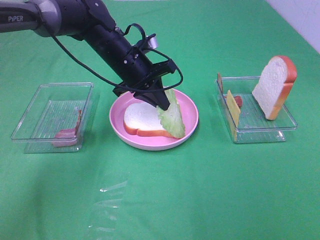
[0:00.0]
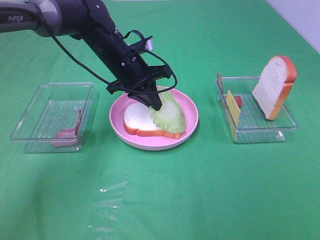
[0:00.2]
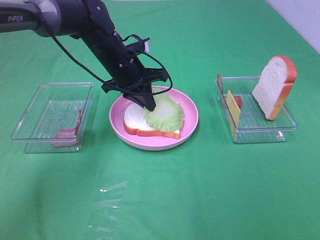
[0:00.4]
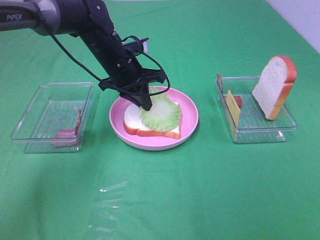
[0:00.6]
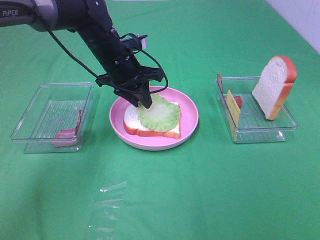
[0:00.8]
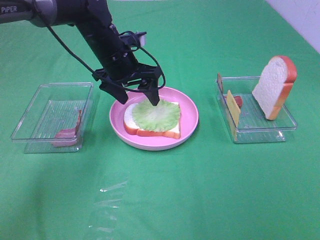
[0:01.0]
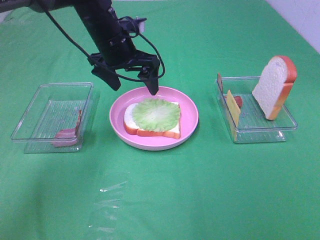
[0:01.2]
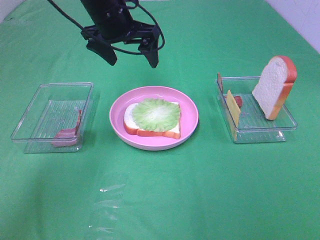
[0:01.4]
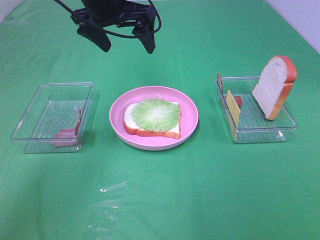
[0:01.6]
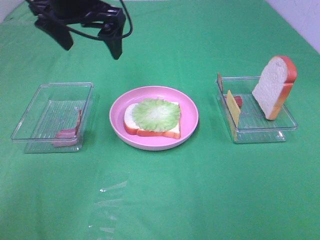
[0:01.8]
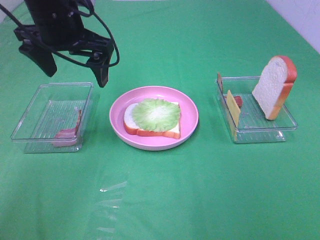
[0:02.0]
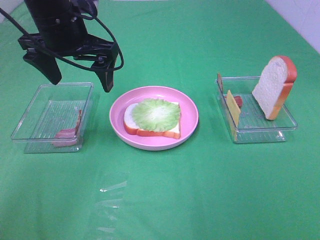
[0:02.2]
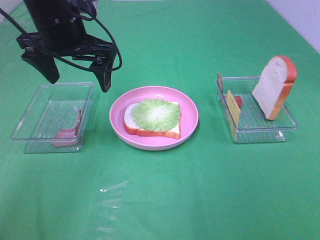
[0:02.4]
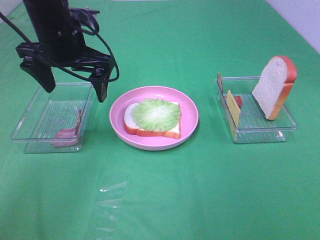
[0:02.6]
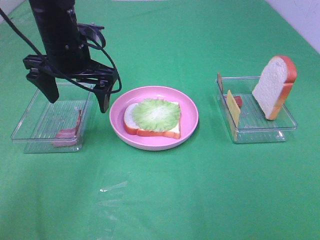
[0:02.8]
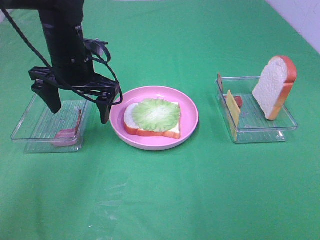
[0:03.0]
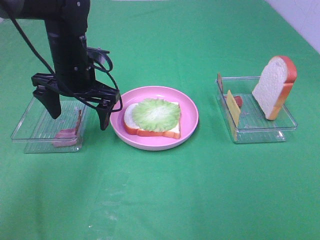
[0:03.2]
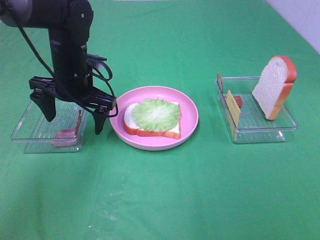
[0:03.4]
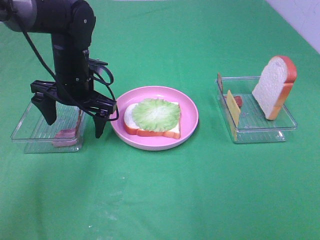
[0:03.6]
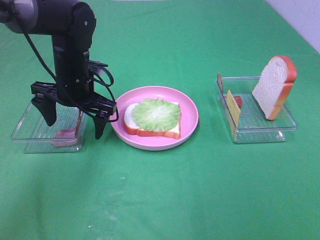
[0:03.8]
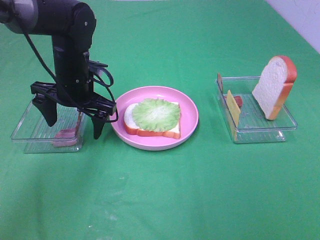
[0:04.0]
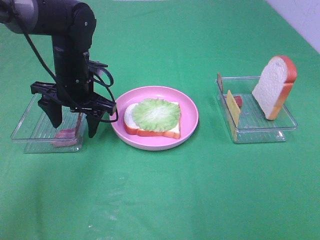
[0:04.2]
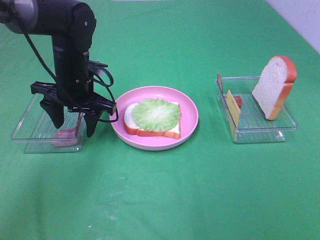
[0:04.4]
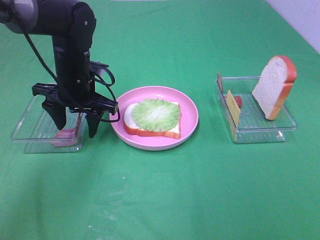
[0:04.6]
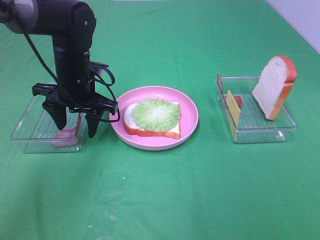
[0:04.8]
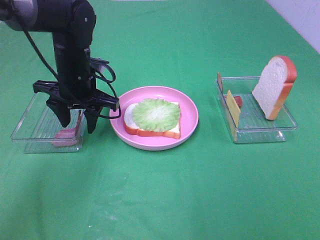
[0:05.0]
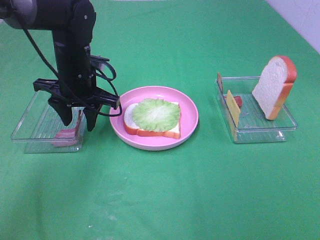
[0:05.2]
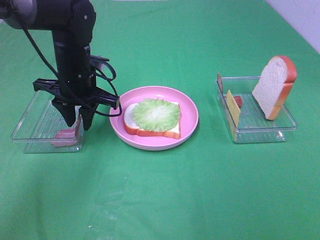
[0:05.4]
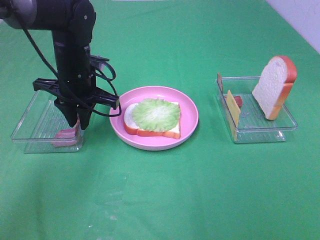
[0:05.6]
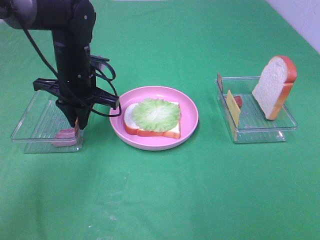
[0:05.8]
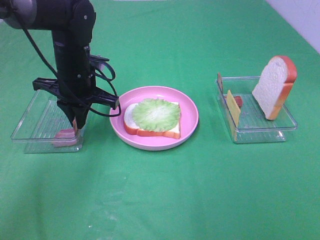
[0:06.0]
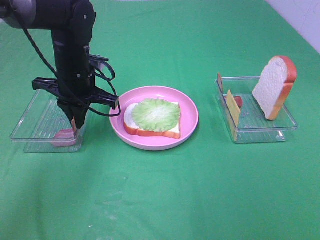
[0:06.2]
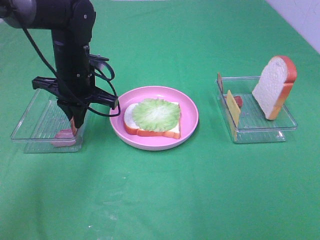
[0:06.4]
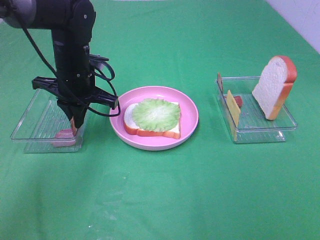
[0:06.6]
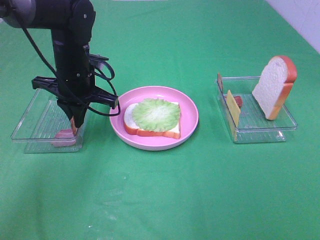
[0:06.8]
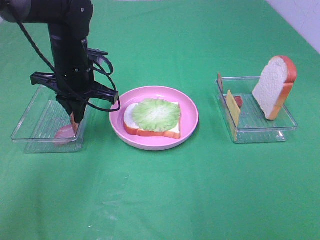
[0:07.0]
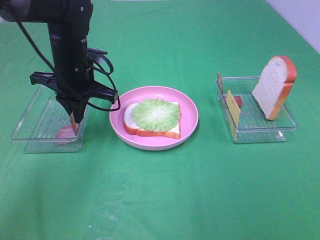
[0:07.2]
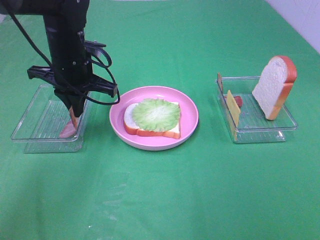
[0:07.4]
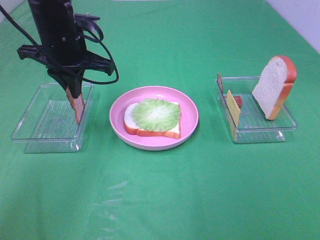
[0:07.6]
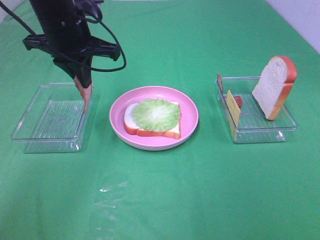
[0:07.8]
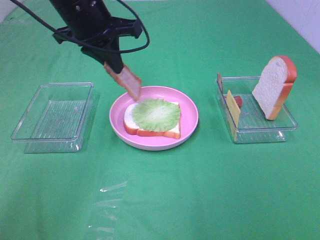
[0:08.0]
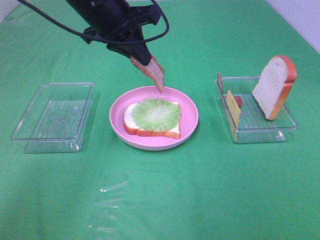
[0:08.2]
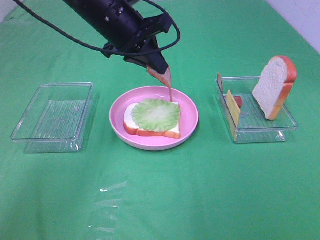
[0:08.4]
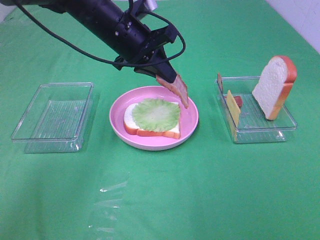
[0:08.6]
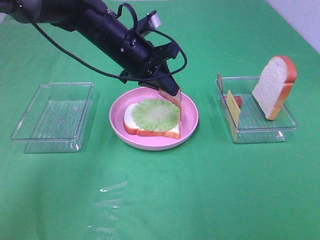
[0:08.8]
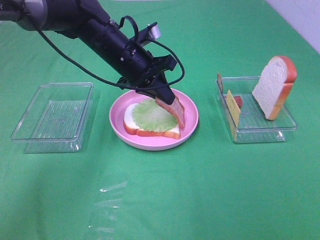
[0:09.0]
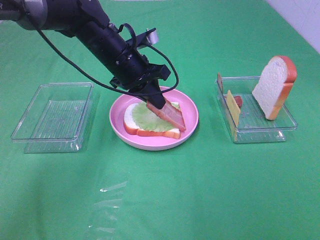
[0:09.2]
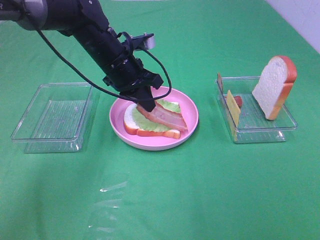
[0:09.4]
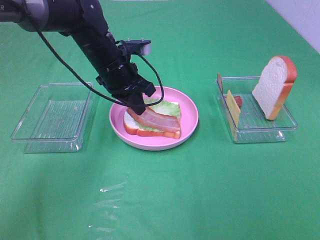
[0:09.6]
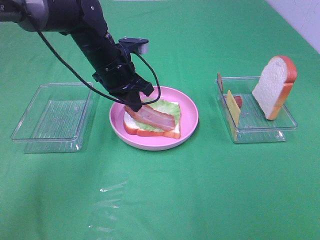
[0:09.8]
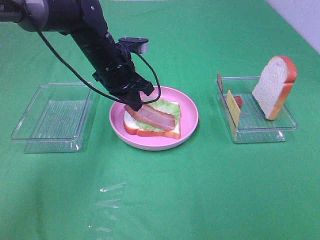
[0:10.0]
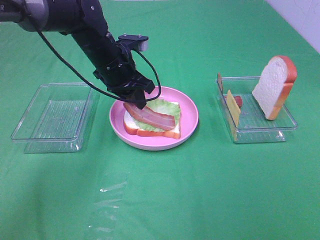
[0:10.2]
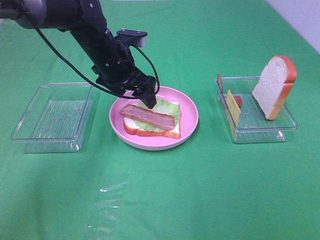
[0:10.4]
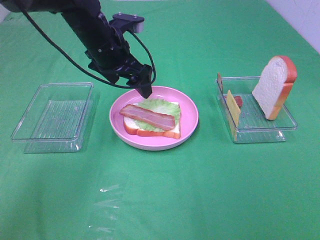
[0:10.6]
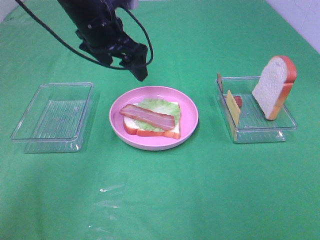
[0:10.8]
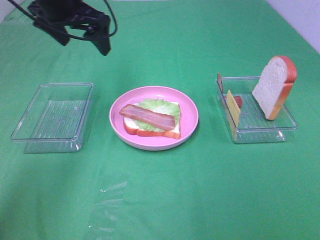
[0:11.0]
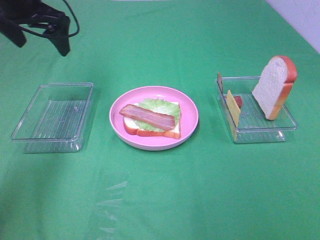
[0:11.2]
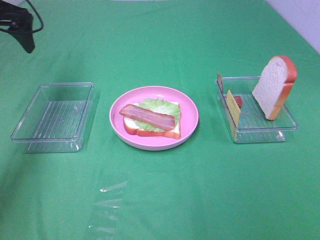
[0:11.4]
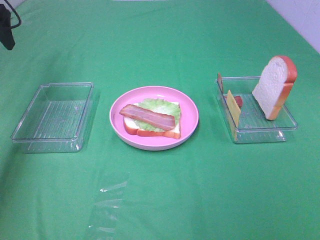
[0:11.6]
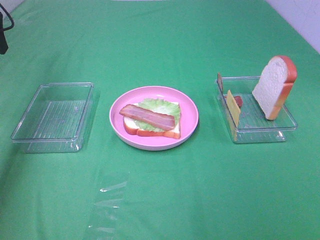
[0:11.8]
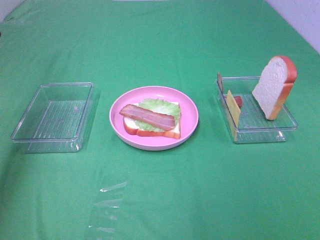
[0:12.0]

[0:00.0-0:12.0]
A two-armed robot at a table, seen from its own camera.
Task of the whole recording: Make sandwiches.
Step, 0:01.2 to 0:06.6: Left hand:grab the bacon.
Step, 0:06.8 to 0:10.4: Left hand:place bacon on lettuce slice.
0:00.0 to 0:01.6: The left gripper shifts roughly 15 cm upward, and opens up.
0:01.6 to 0:03.0: The left gripper is displaced downward by about 10 cm.
0:03.0 to 0:04.4: The grippers make only small movements.
0:04.4 to 0:06.0: The left gripper closes its fingers.
0:06.0 to 0:07.6: The left gripper goes roughly 10 cm upward.
0:07.6 to 0:09.0: The left gripper goes roughly 10 cm to the right and downward.
0:09.0 to 0:10.4: The left gripper opens.
0:10.4 to 0:12.0: The left gripper heads to the left and upward, covering roughly 30 cm.

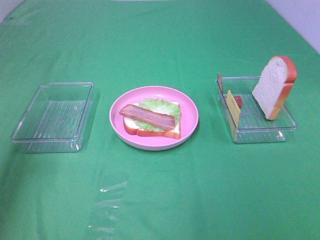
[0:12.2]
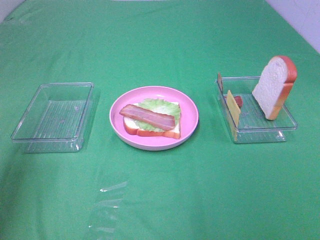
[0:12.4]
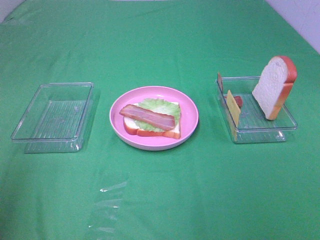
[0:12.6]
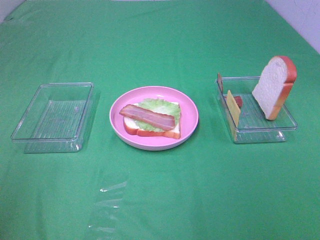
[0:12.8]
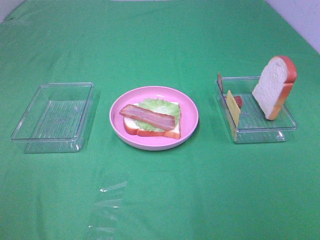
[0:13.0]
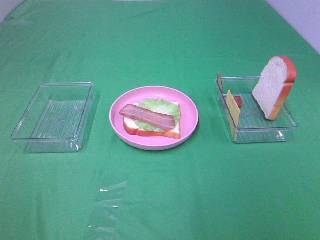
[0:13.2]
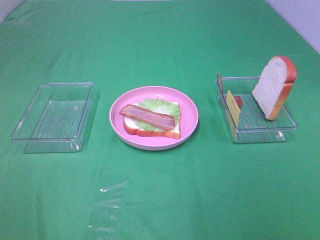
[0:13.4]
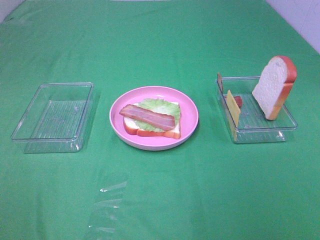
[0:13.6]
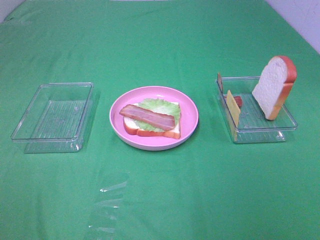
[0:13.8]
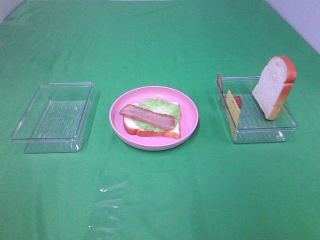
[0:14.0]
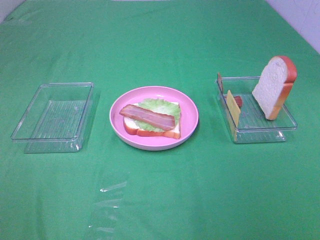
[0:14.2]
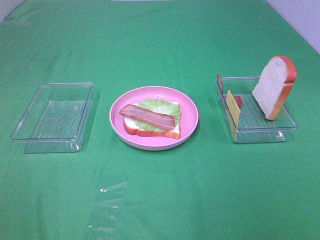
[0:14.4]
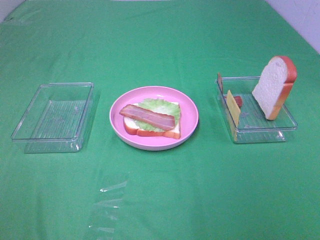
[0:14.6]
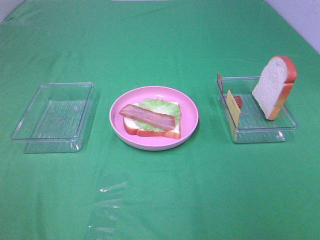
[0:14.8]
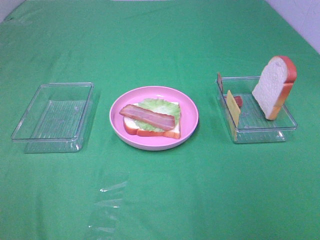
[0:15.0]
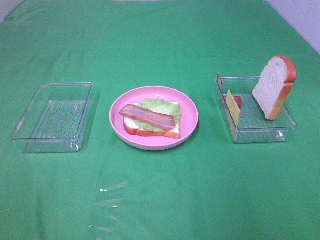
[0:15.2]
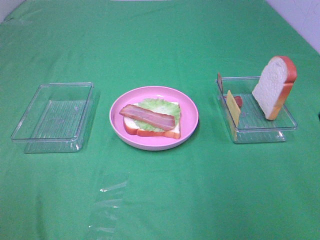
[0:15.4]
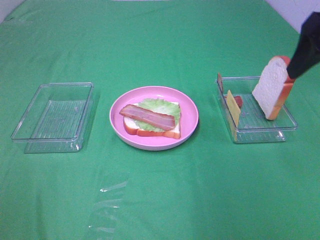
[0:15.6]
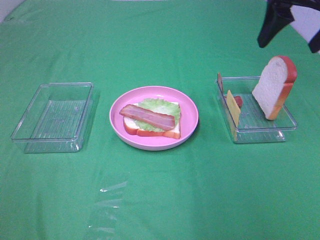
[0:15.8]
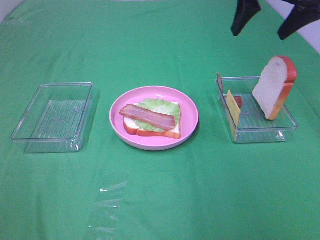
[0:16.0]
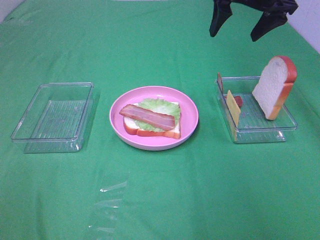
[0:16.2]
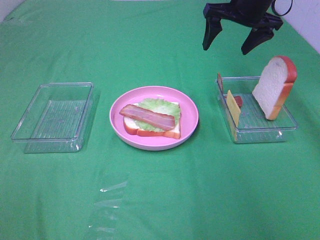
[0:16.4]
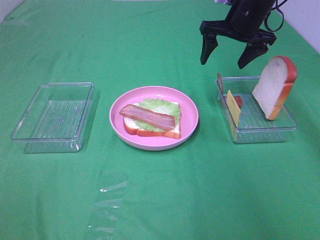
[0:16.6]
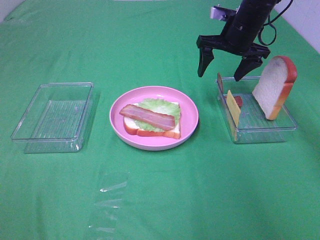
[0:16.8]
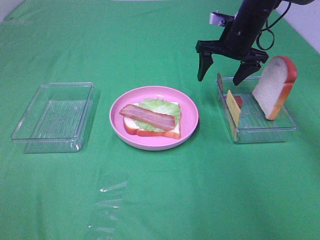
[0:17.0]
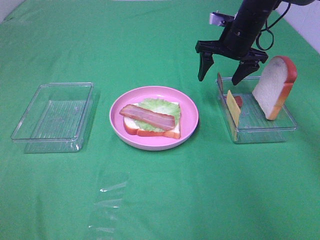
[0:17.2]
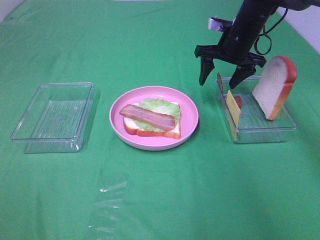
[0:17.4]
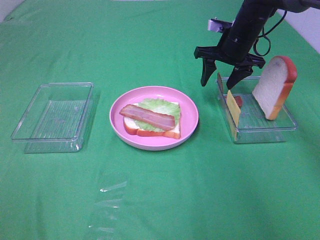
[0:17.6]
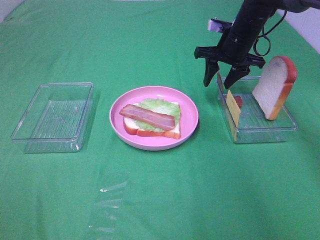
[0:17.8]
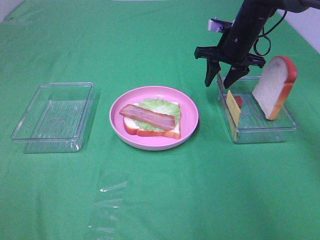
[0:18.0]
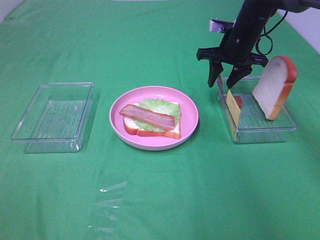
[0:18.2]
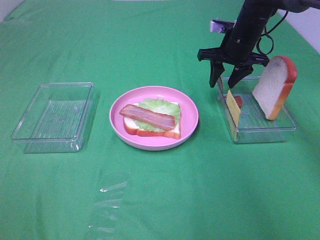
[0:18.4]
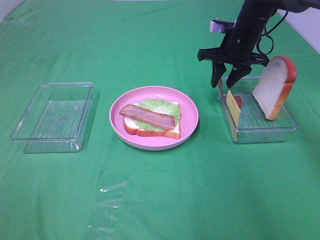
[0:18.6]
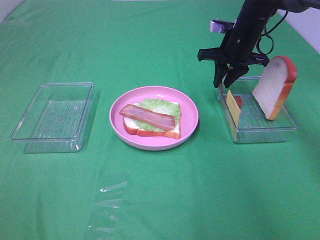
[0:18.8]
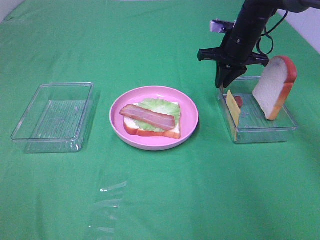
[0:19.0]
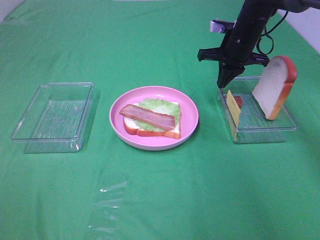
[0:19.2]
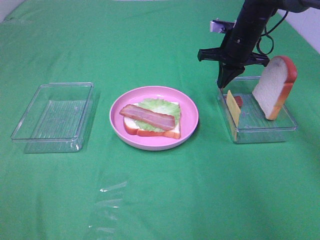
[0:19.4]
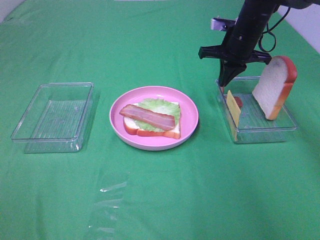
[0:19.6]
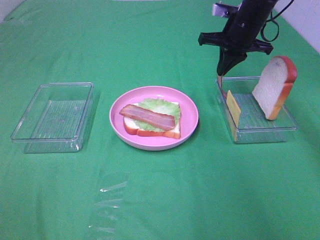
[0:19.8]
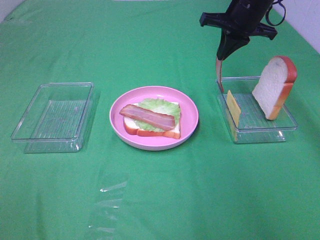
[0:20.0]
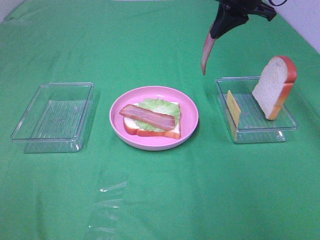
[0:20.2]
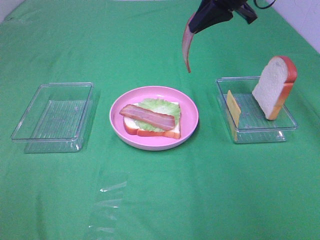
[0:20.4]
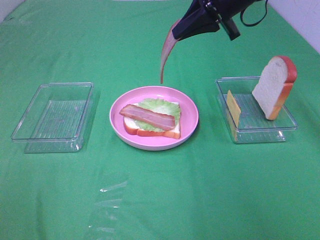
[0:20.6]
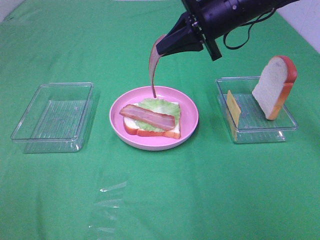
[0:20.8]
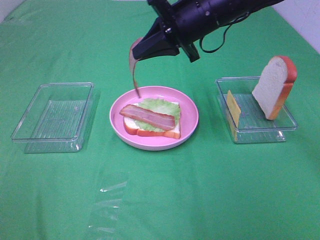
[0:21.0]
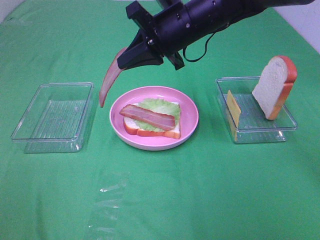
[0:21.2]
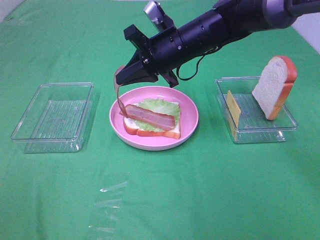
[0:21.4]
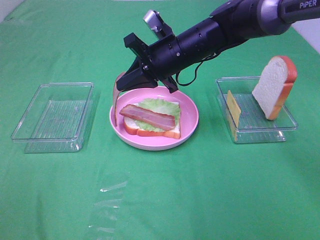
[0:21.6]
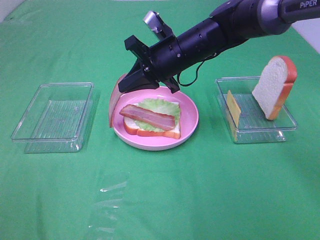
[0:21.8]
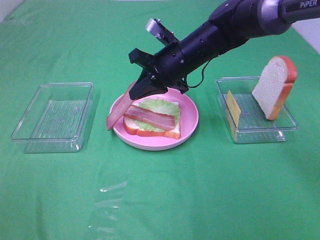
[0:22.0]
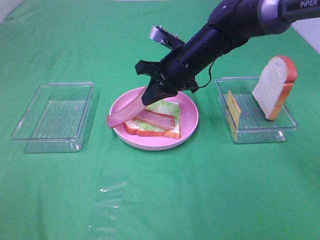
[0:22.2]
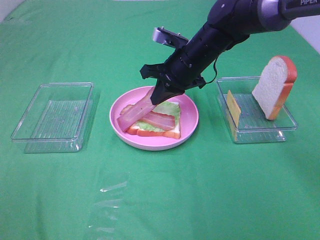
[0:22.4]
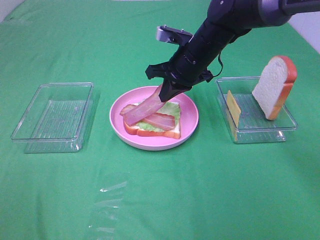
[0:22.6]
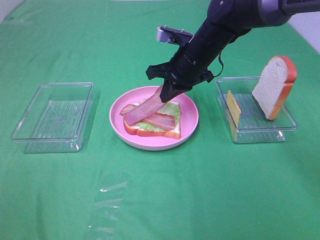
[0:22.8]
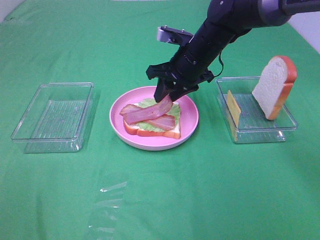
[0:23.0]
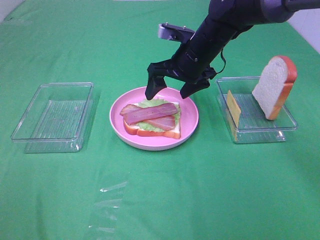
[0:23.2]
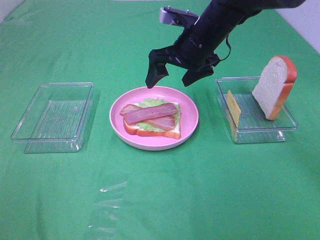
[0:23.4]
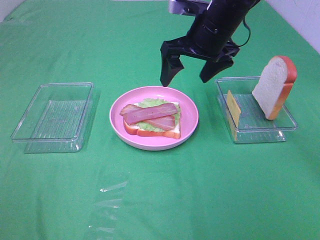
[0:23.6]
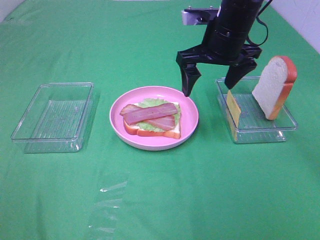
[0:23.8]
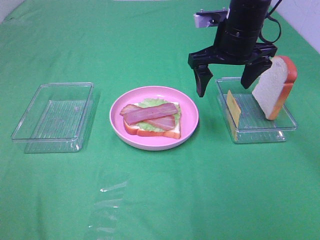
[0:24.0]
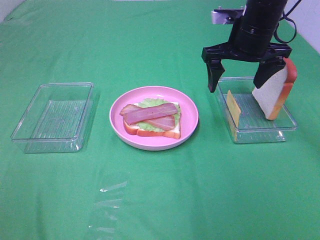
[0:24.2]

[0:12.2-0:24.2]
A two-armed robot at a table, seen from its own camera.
Task of the whole recording: Make sandwiches.
Step, 0:12.2 to 0:19.2: Right hand:grab the bacon.
Step, 0:19.4 to 0:23.0: Right hand:place bacon on bacon.
0:12.2 to 0:13.8: The left gripper heads backward, covering some 30 cm.
0:15.2 to 0:16.6: The right gripper shifts about 40 cm forward.
0:16.6 to 0:18.2: The right gripper moves downward, some 5 cm, and closes up.
0:18.2 to 0:19.8: The right gripper closes.
0:19.8 to 0:21.2: The right gripper travels to the left and backward by about 15 cm.
0:21.2 to 0:22.6: The right gripper is displaced downward by roughly 5 cm.
0:22.6 to 0:24.2: The right gripper goes roughly 10 cm to the right and upward, and opens its fingers.
